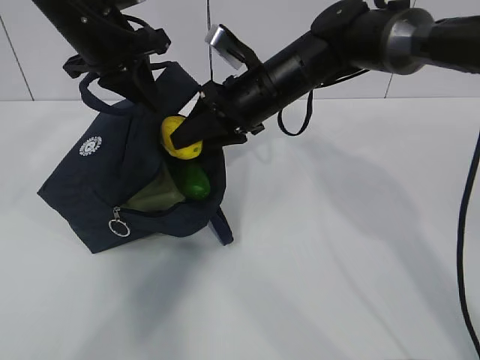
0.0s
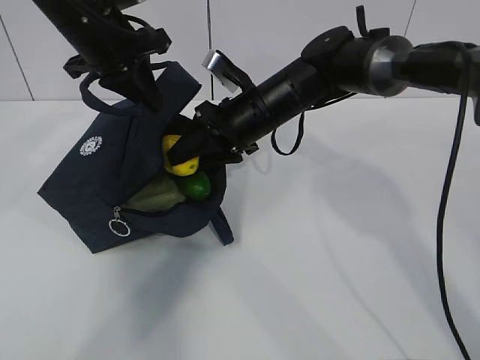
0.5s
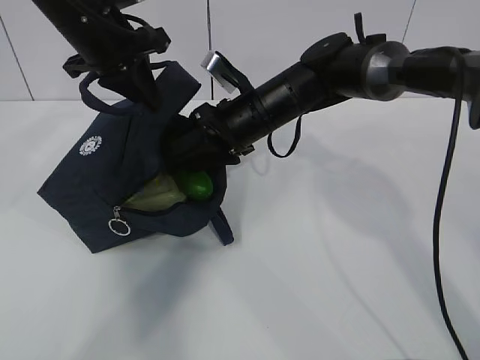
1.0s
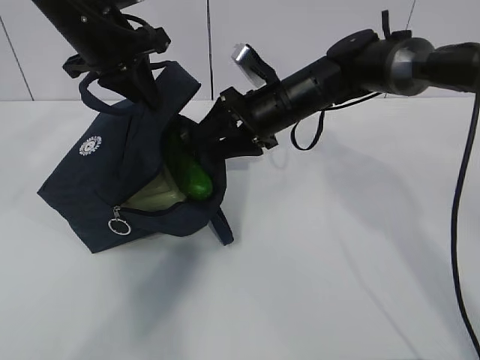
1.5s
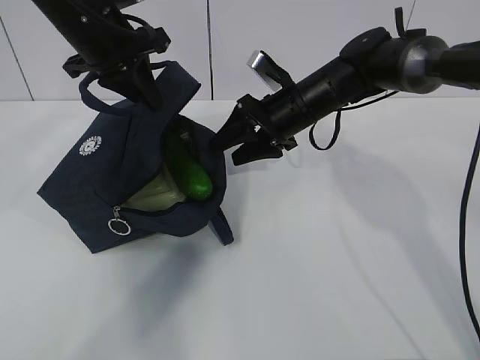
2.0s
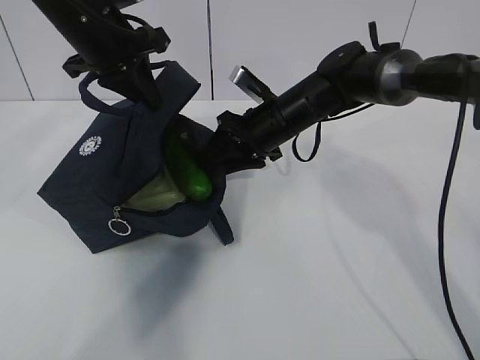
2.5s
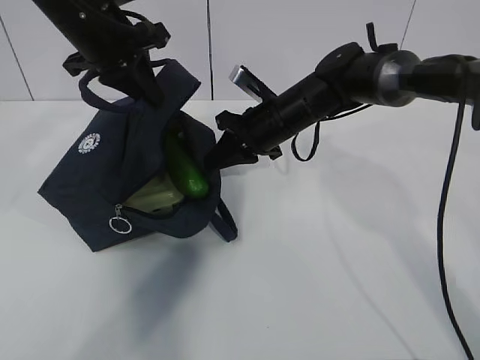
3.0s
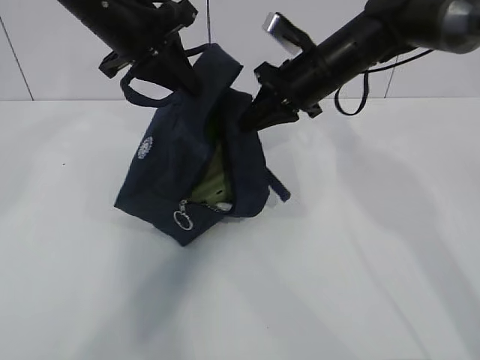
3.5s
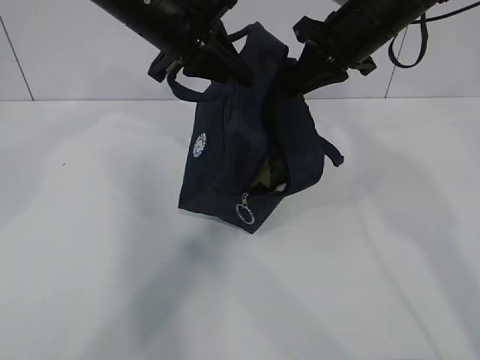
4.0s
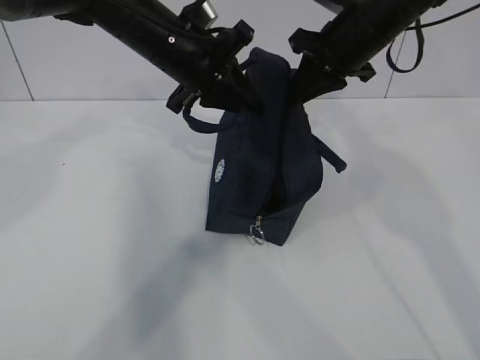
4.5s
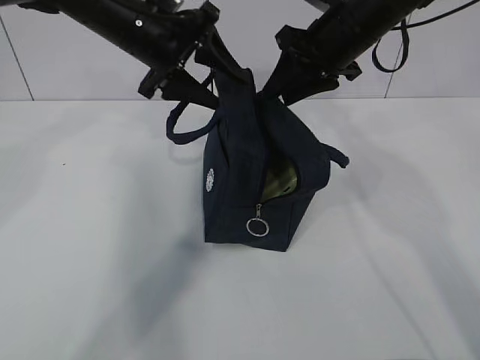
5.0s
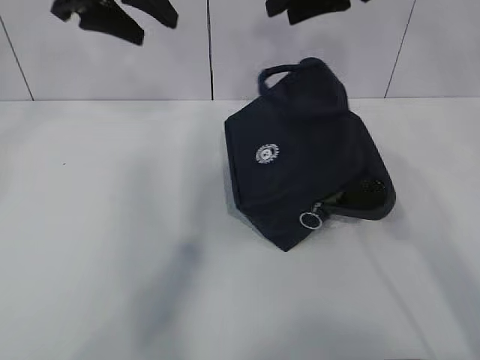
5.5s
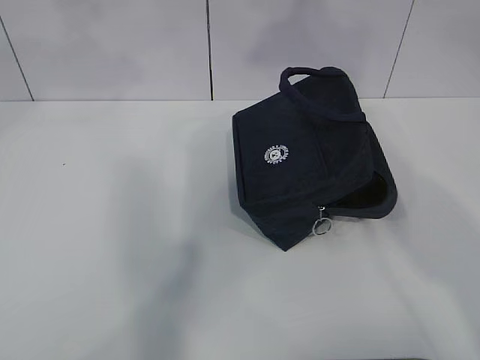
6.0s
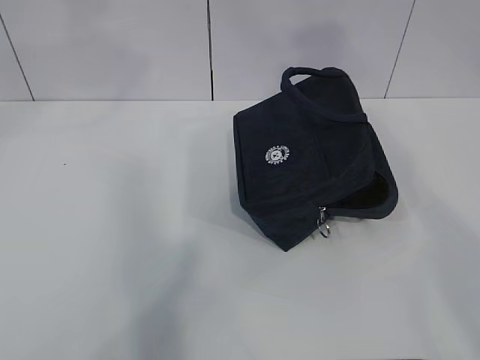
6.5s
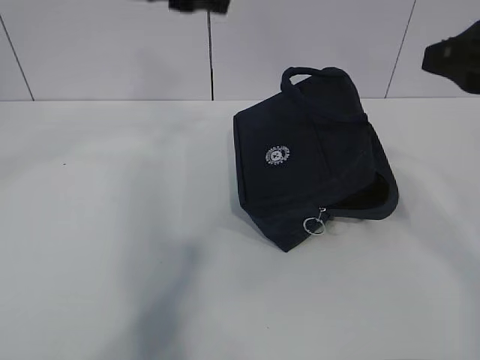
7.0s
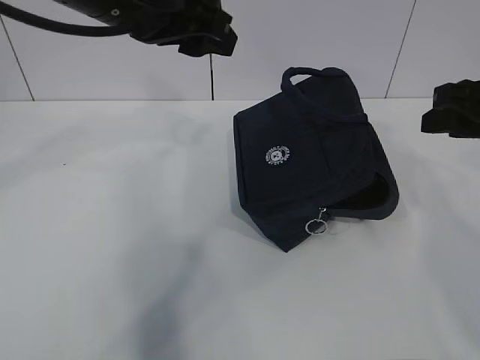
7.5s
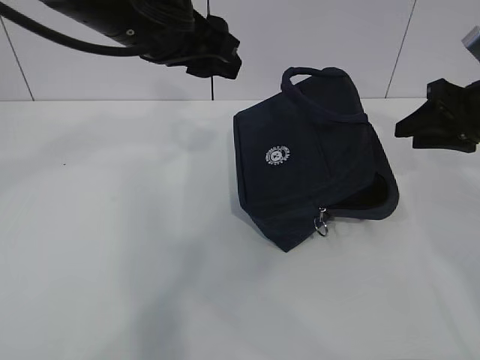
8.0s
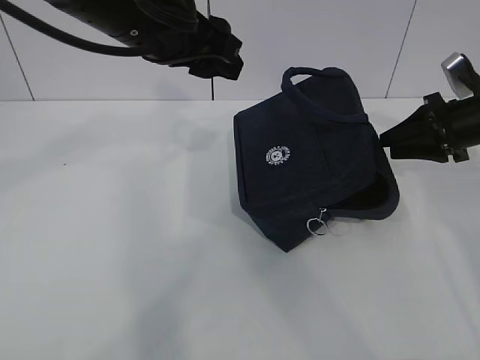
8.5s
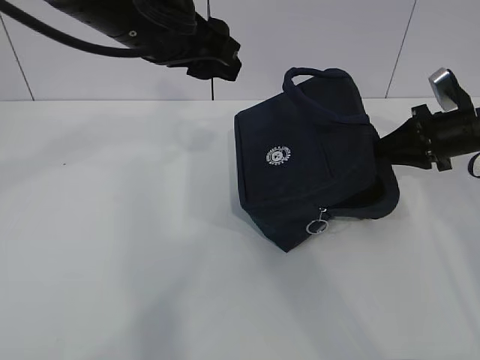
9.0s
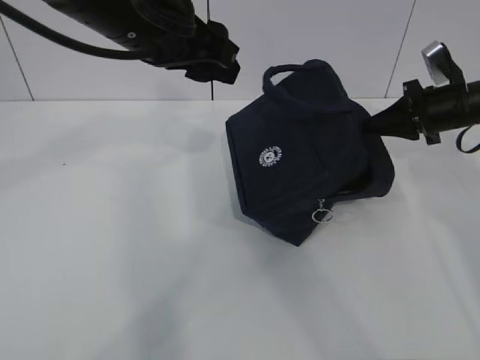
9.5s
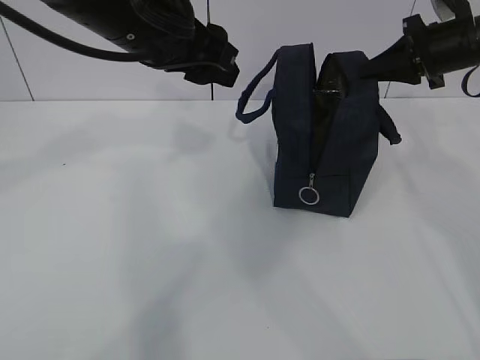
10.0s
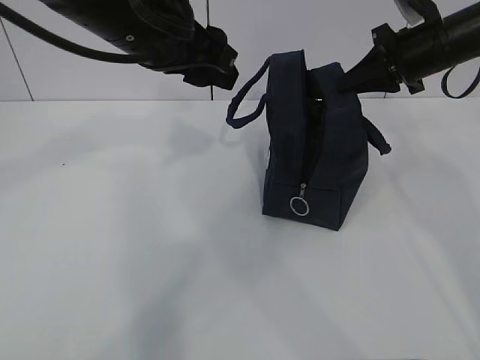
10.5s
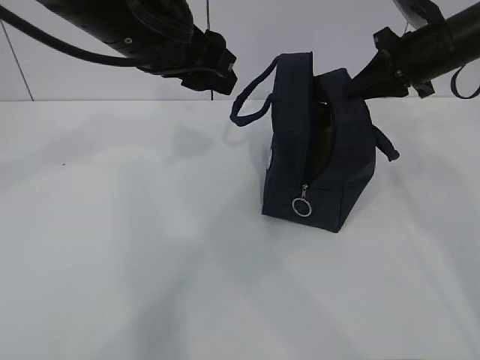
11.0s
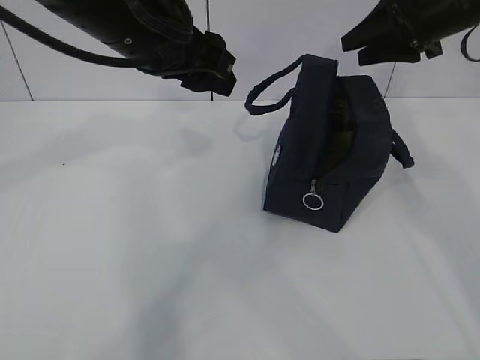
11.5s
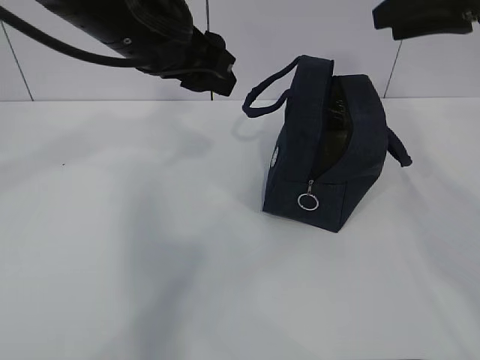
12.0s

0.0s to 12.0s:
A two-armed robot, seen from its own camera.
Step, 0.0s to 2.5s: Grab the lunch bag with your right hand.
Step, 3.0s to 4.5s: Stand the lunch bag upright with your right hand.
0.0s to 2.0s: The right gripper shifts by roughly 5 cm.
2.0s to 4.0s: The left gripper goes about 5 cm to the right. Meanwhile the right gripper moves upward and to the right, roughly 15 cm, and closes up.
4.0s to 6.0s: The left gripper shifts roughly 20 cm upward and to the left, and opens up. The right gripper heads upward and backward, covering about 25 cm, and opens.
6.0s to 8.0s: The left gripper shifts about 15 cm downward and to the right; the right gripper heads downward and to the right, covering about 30 cm.
8.0s to 10.0s: The right gripper heads forward, covering approximately 10 cm, moves about 10 cm downward and comes back, and closes its fingers.
10.0s to 12.0s: The right gripper moves upward and backward, some 15 cm, and opens.

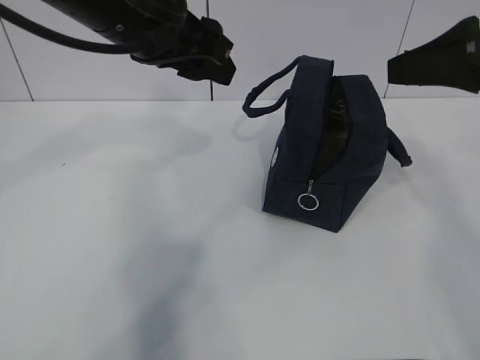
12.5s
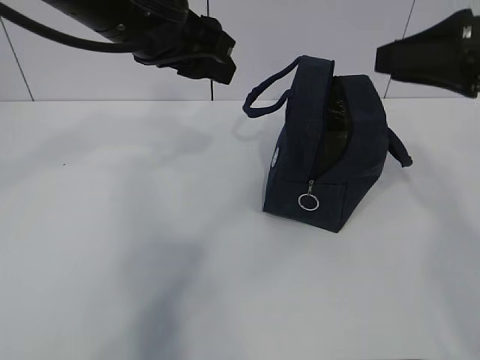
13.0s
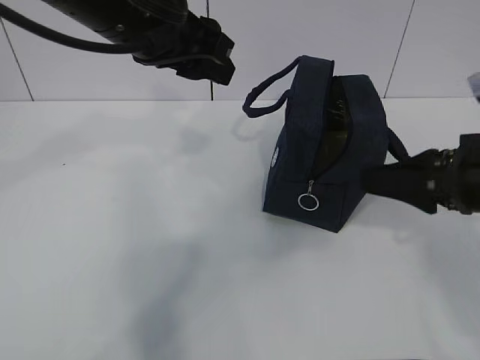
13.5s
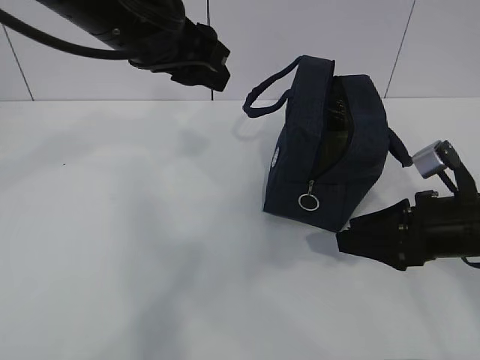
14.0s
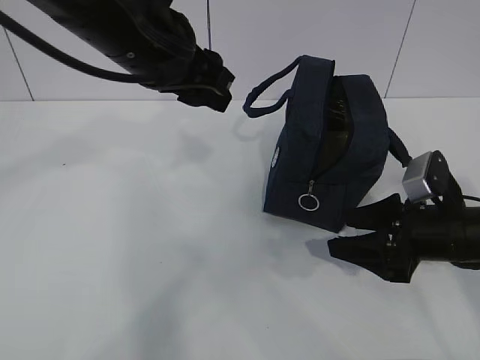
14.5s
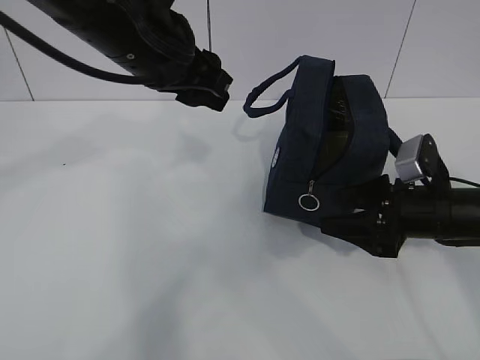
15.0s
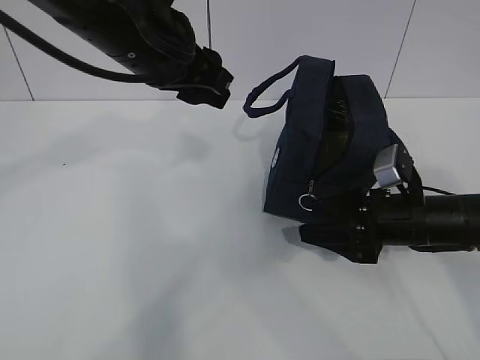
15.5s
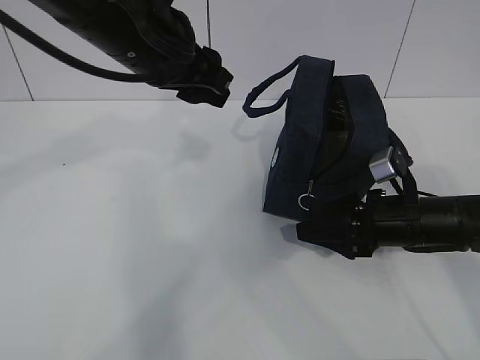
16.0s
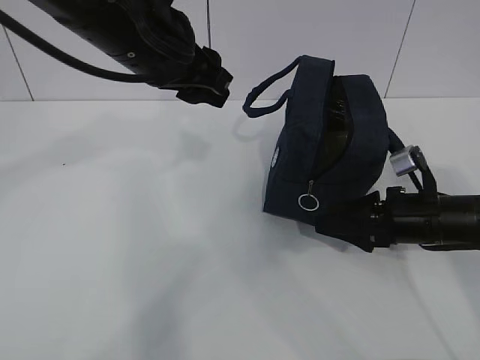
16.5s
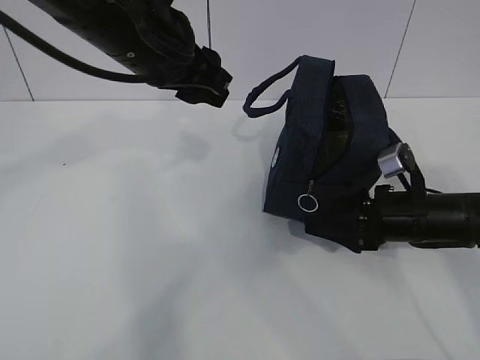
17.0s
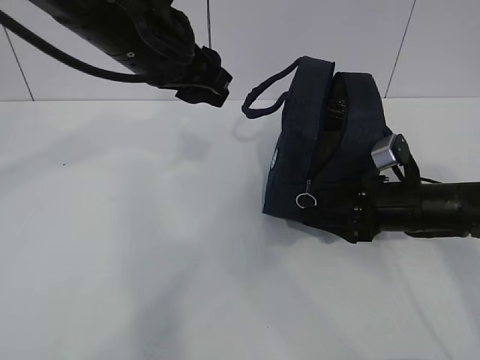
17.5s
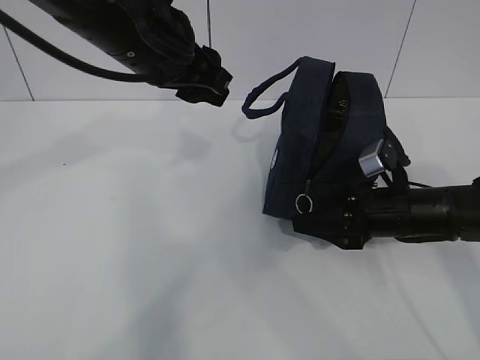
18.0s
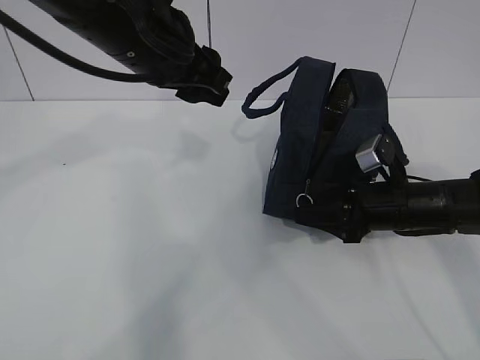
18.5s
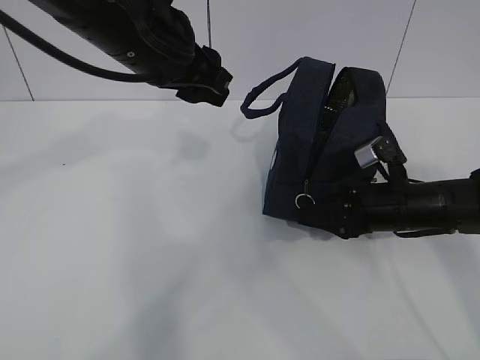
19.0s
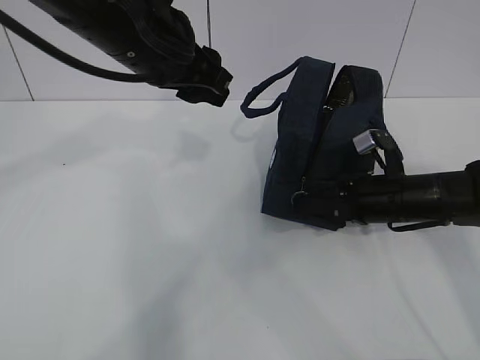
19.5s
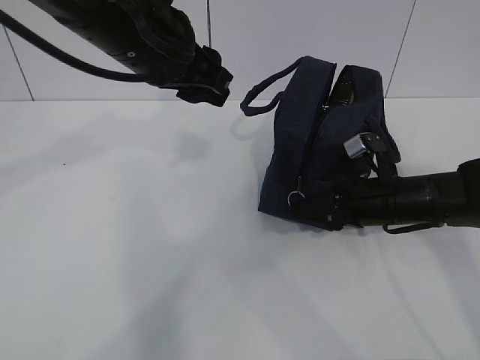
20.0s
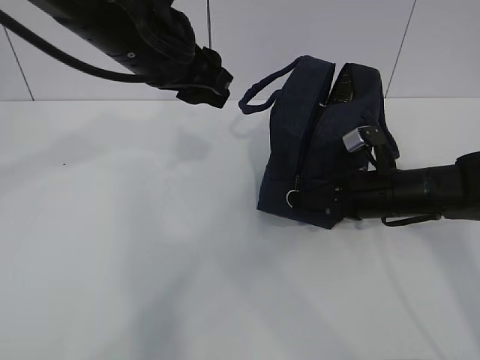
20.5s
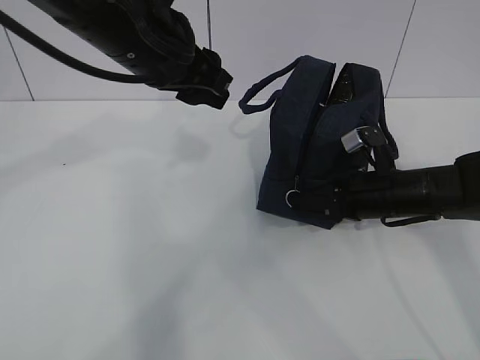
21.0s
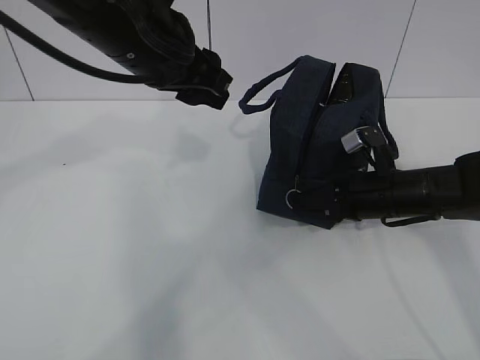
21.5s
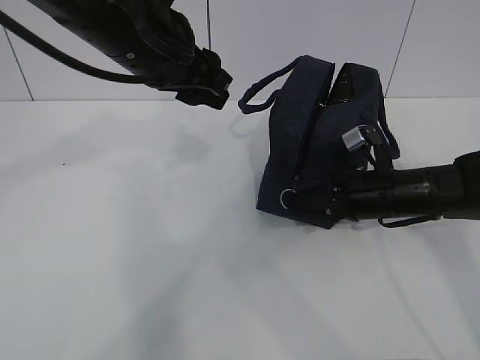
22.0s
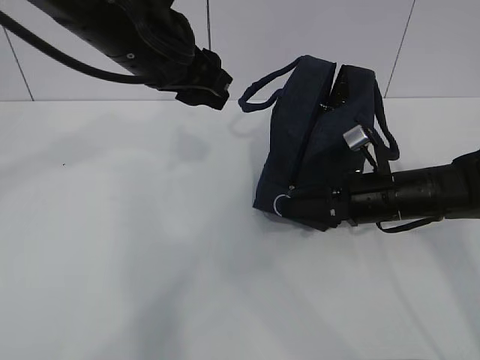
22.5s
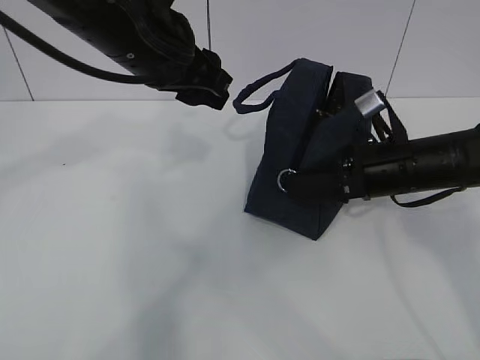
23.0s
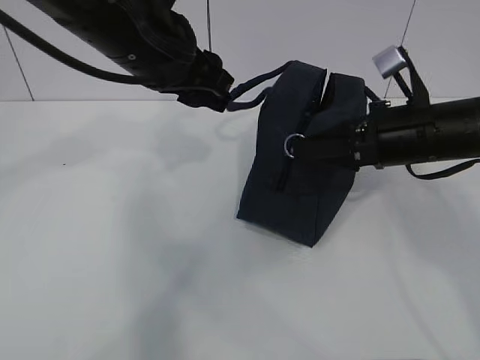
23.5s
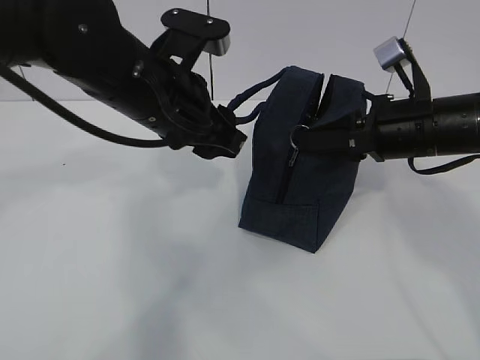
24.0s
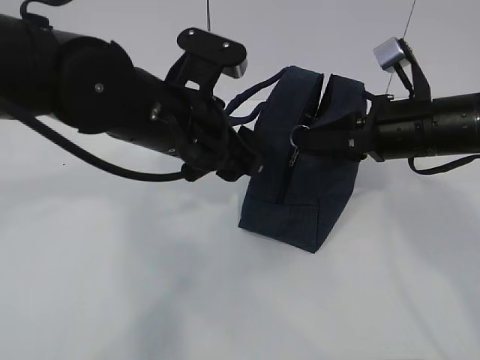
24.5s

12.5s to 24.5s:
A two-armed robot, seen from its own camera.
Step, 20.0s to 23.0s: Pull the zipper with your right hand.
Step, 23.5s to 24.0s: Grab the lunch bag with your left hand.
12.5s to 14.5s: The right gripper travels downward by roughly 20 cm.
14.5s to 16.5s: There are only small adjustments of the grippers.
16.5s to 18.5s: The grippers move only a little.
18.5s to 20.5s: The right gripper closes.
20.5s to 22.5s: There are only small adjustments of the grippers.
22.5s to 24.5s: The left gripper goes some 5 cm downward; the right gripper moves upward, some 10 cm.

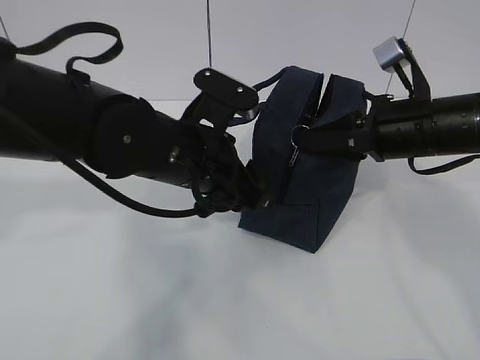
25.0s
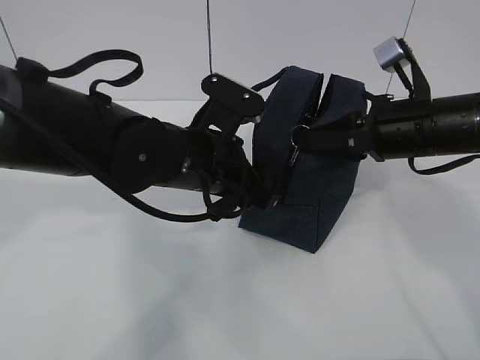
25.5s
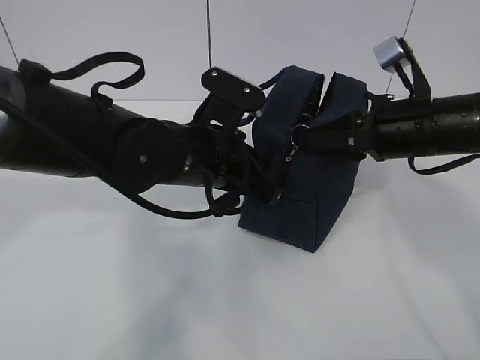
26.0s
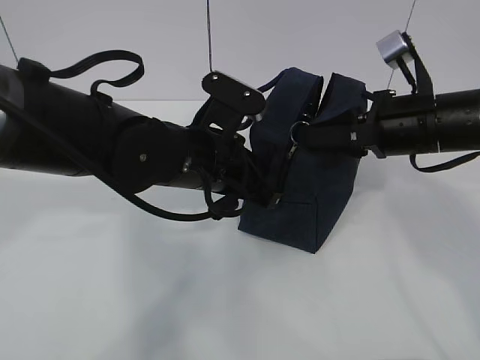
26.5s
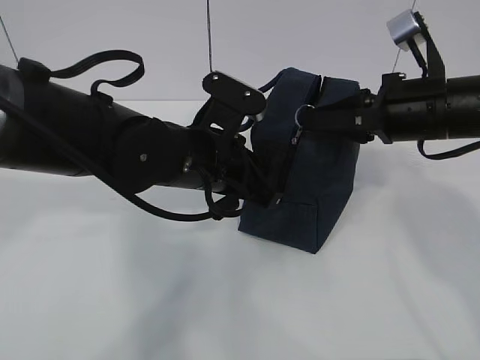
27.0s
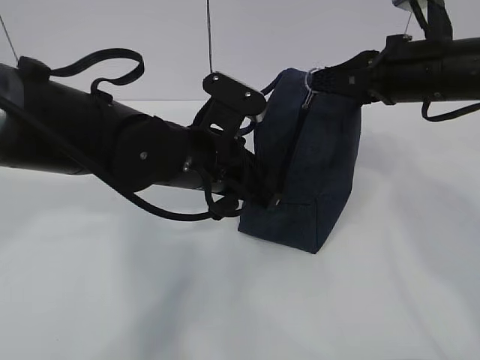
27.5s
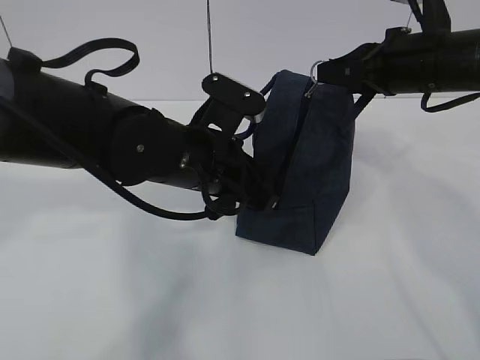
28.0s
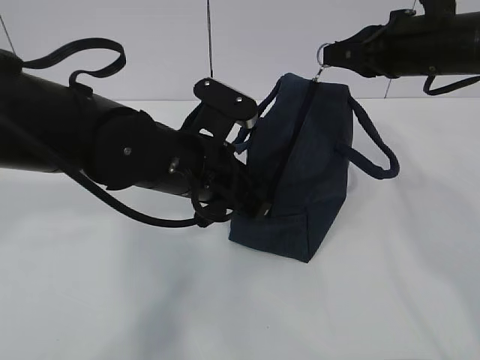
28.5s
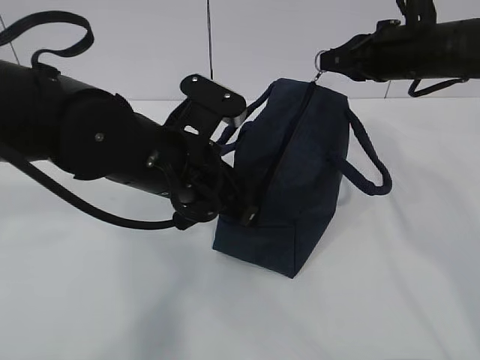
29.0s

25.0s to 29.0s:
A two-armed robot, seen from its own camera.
25.0s to 27.0s: The left gripper closes up.
27.0s to 29.0s: The right gripper travels forward by some 10 cm.
